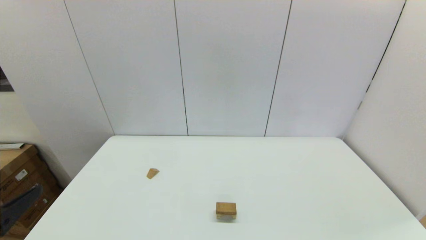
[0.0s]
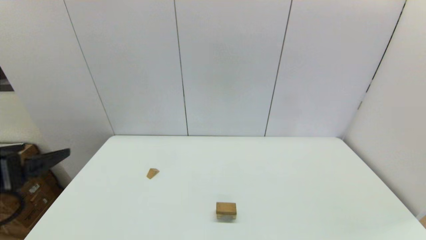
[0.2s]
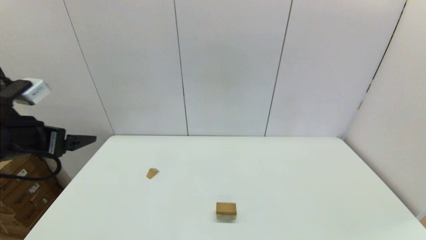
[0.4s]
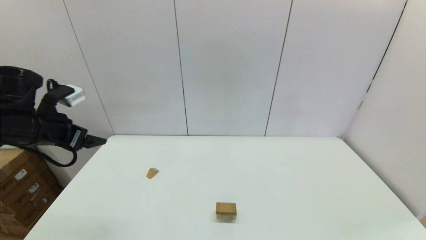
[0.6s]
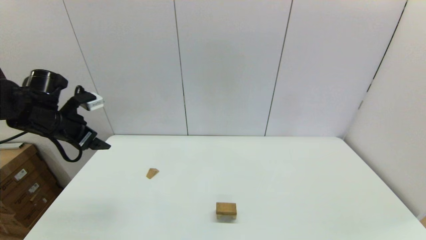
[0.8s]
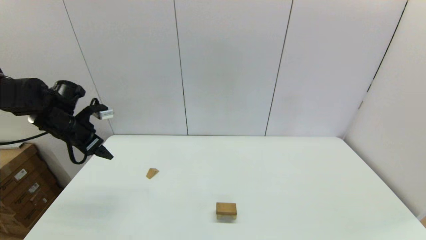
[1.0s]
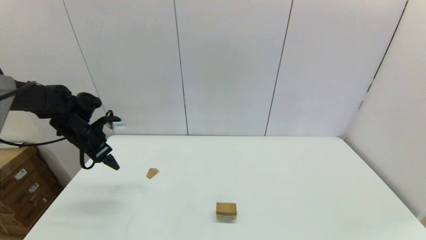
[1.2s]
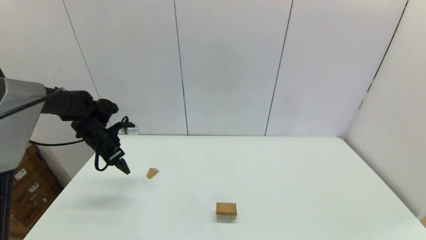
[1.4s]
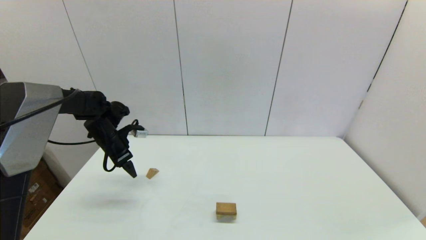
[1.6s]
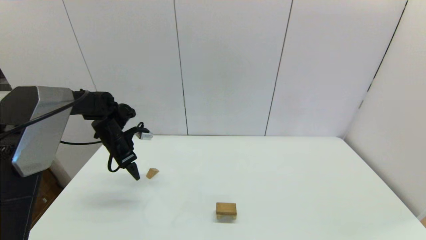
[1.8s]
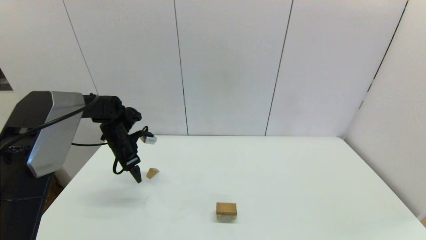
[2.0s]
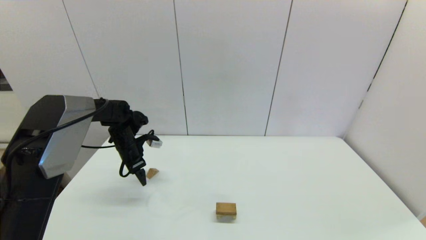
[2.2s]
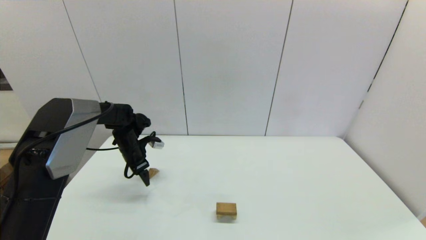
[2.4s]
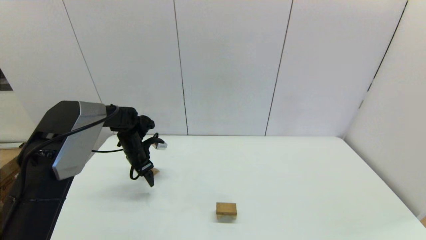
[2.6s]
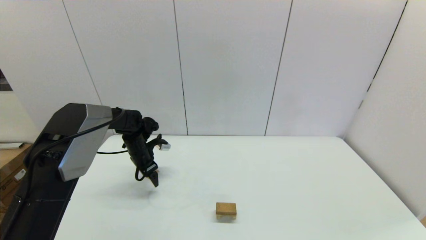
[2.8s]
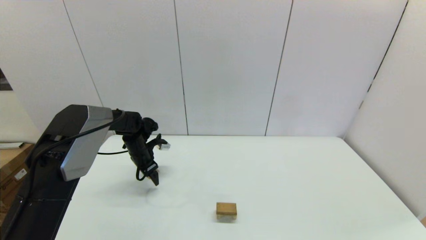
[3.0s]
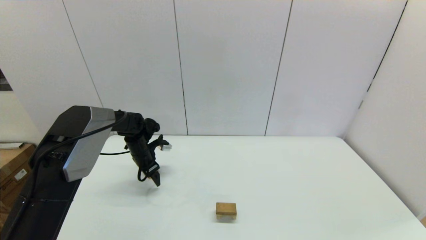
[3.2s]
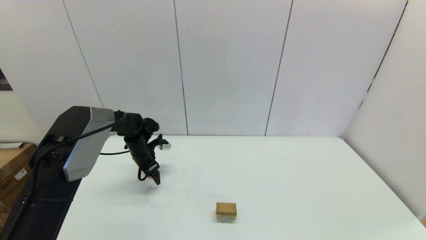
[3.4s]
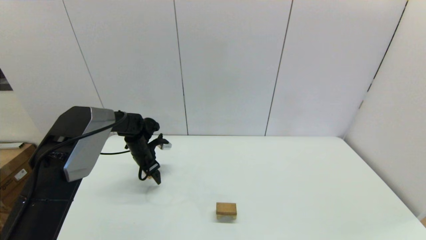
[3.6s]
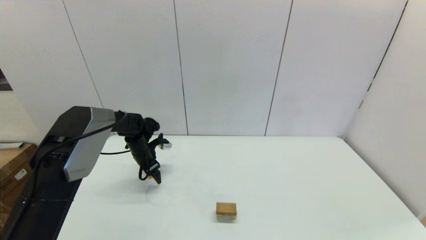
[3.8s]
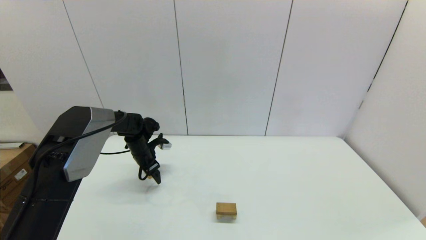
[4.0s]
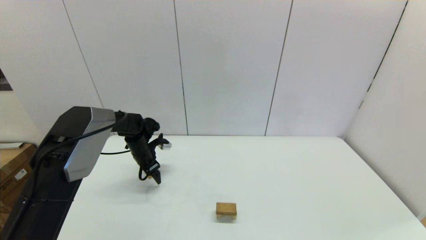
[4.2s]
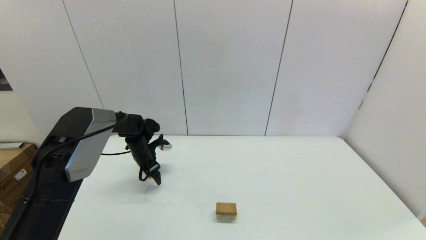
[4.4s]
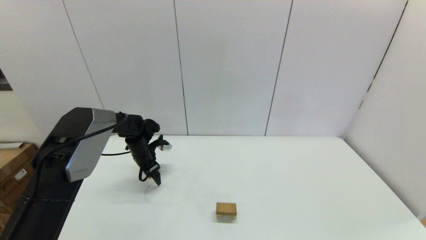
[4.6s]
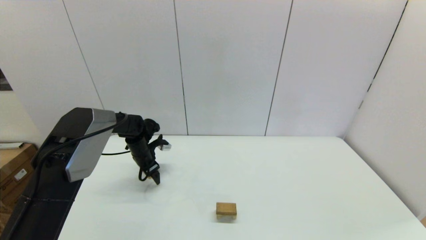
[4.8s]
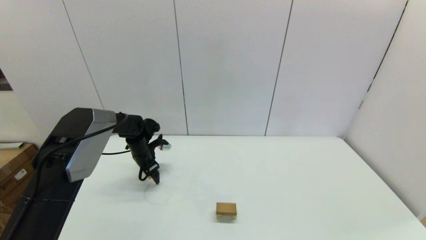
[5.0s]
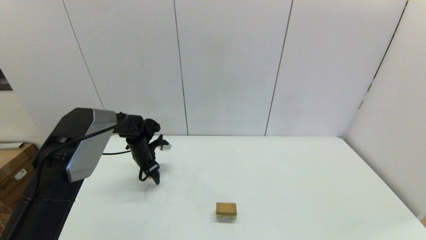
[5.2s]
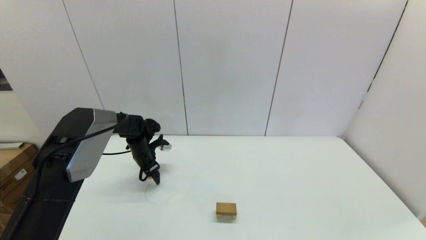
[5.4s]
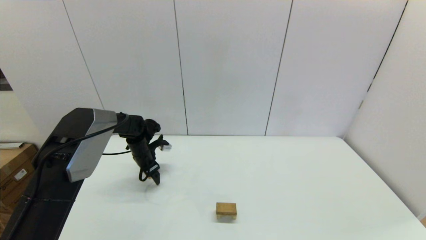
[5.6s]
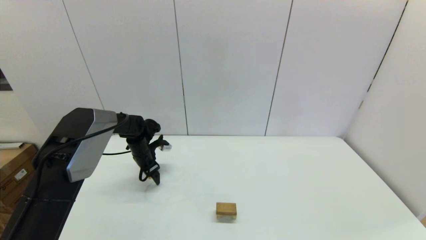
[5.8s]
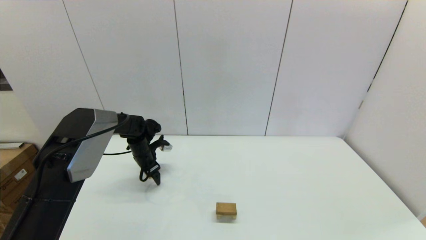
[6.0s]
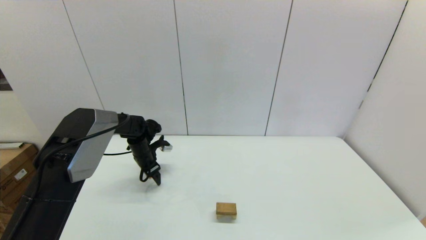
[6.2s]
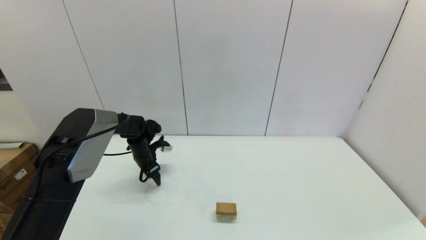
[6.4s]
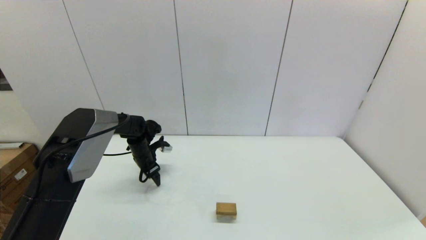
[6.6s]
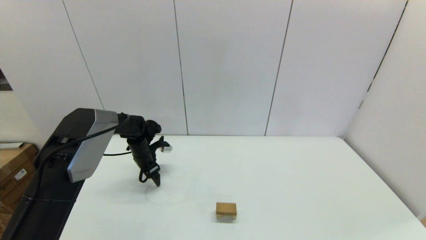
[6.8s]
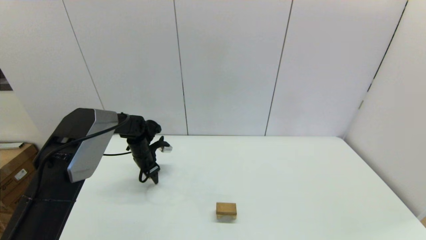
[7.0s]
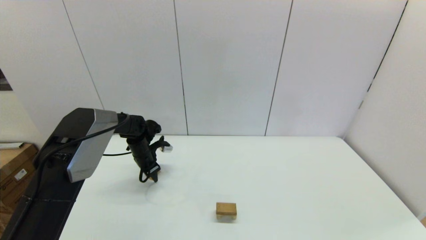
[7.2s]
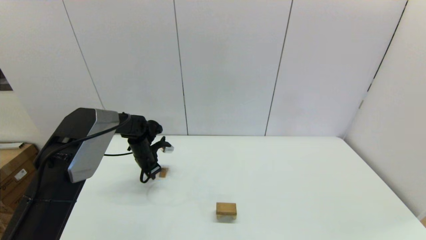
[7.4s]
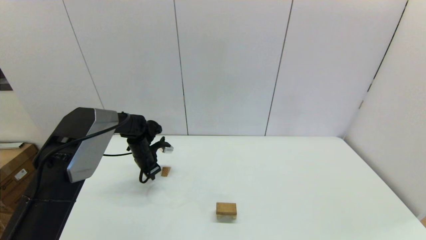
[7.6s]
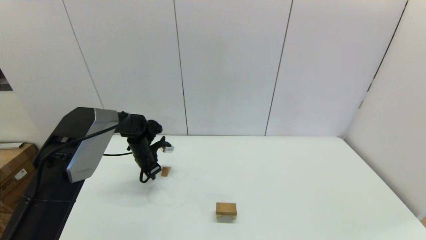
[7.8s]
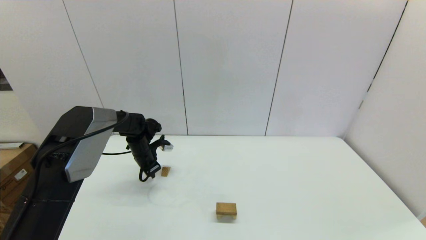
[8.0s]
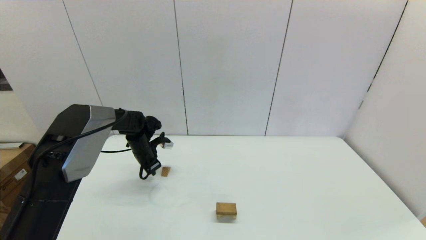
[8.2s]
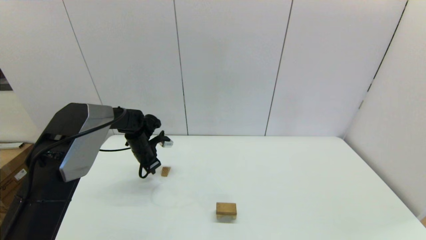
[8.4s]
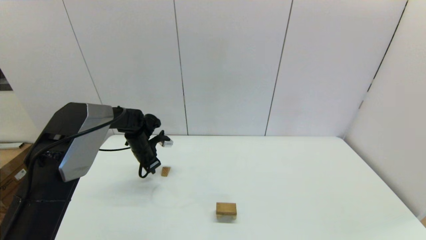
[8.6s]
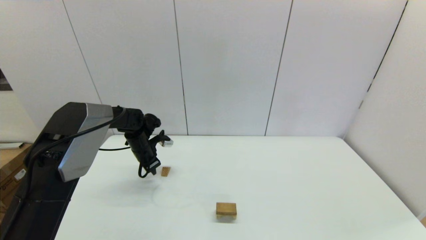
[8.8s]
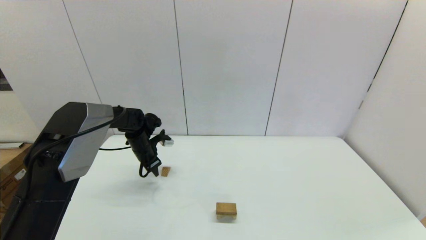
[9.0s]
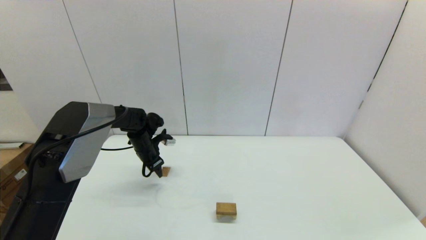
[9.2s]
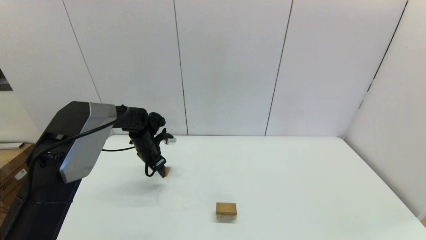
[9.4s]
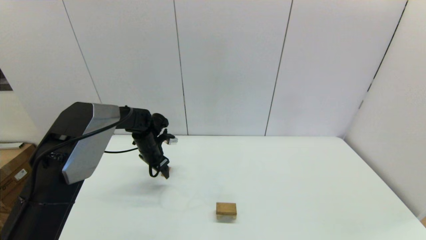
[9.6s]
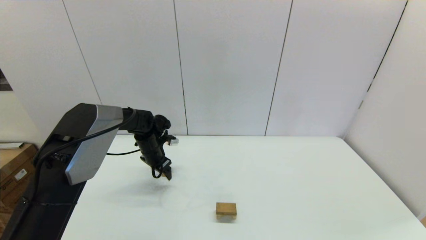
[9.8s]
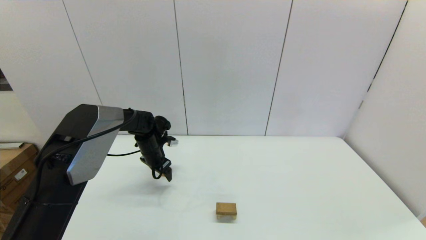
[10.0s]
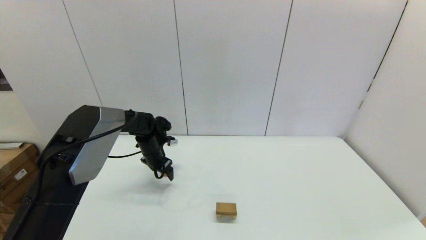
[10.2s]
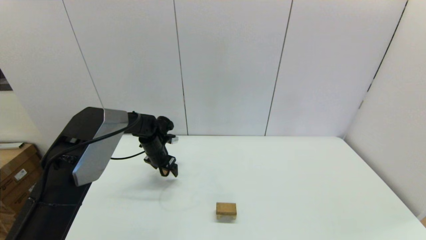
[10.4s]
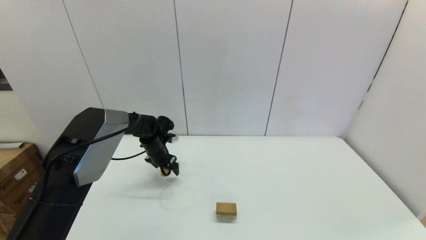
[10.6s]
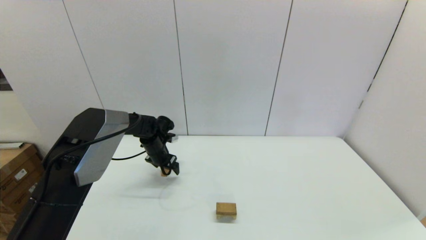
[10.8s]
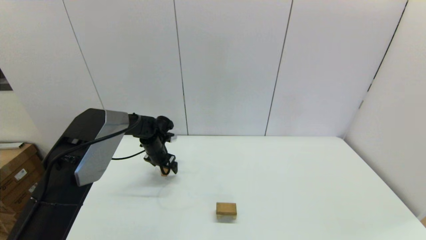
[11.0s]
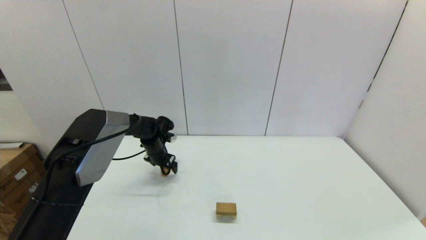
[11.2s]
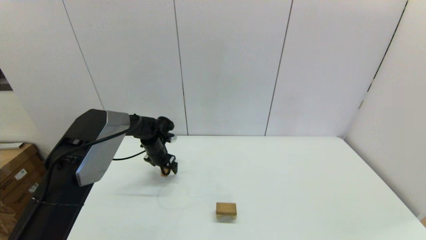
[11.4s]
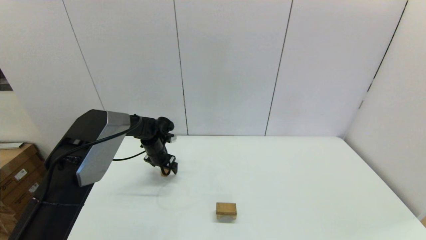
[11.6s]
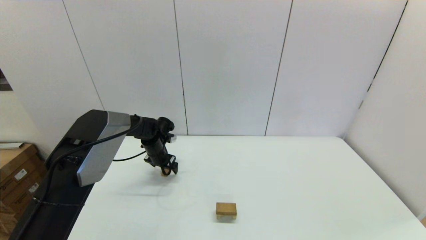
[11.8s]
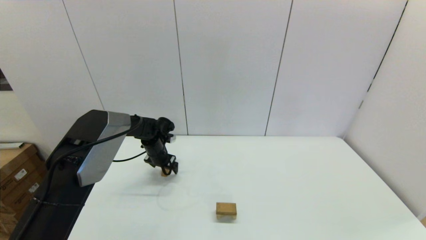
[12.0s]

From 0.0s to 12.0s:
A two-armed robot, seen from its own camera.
Task of the whole recording: place the arched building blocks in the center of the table, set up the rectangular building blocks, and then set up the triangular building blocks.
From 0.0s to 1.6s: The left gripper heads forward, covering about 35 cm.
From 1.6s to 3.0s: The left gripper heads downward and to the right, covering approximately 10 cm.
From 3.0s to 4.4s: Both grippers stay about where they are.
From 4.4s to 6.0s: Neither gripper changes place.
From 6.0s to 7.6s: The left gripper closes up.
From 7.6s to 9.0s: The left gripper opens up.
From 9.0s to 10.4s: The left gripper opens.
From 10.4s to 12.0s: The grippers move only a little.

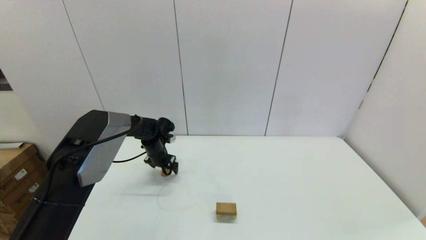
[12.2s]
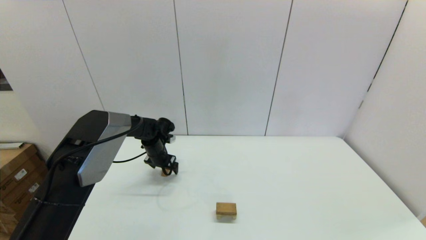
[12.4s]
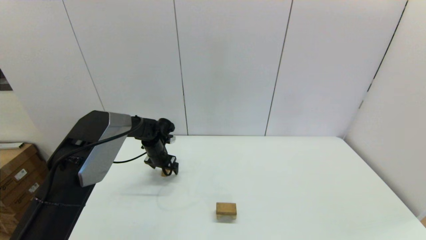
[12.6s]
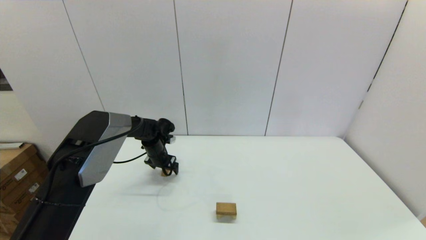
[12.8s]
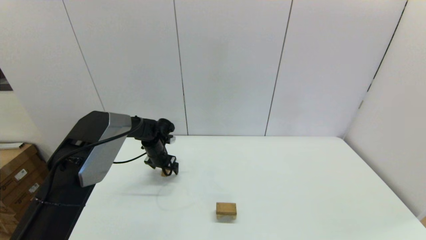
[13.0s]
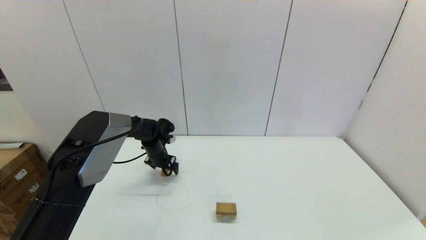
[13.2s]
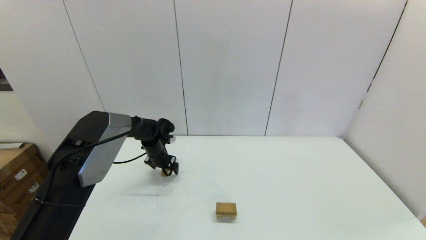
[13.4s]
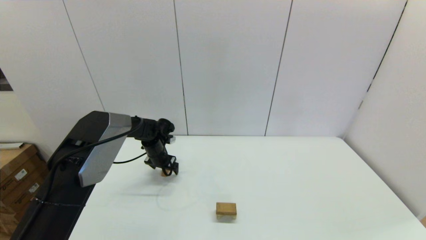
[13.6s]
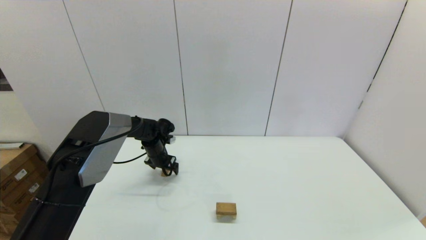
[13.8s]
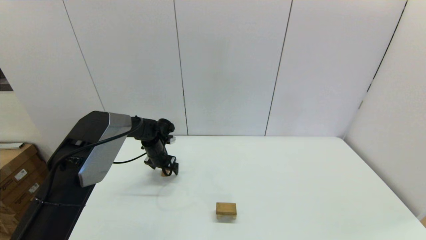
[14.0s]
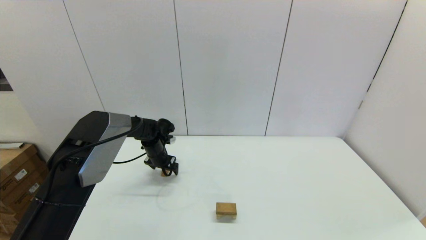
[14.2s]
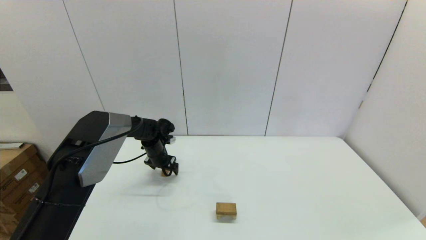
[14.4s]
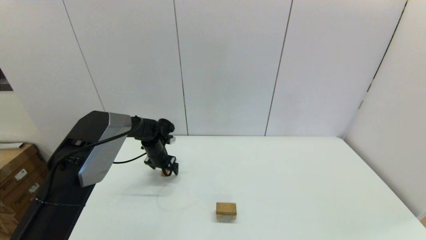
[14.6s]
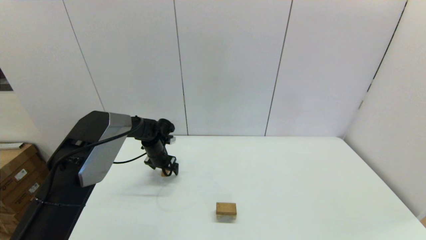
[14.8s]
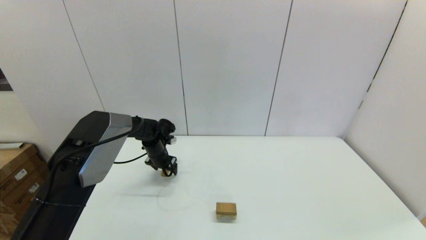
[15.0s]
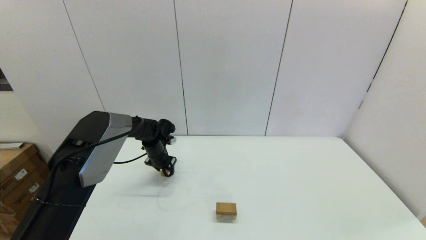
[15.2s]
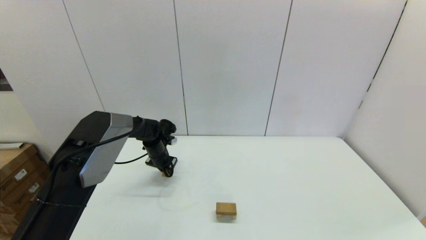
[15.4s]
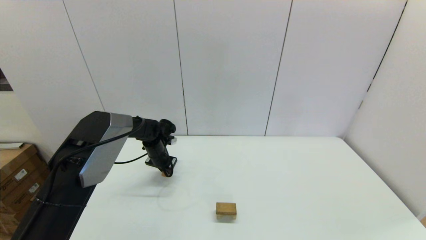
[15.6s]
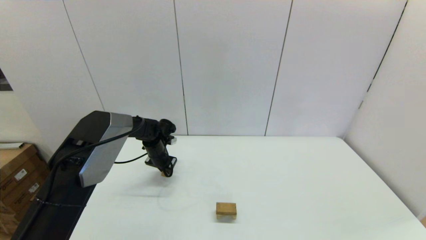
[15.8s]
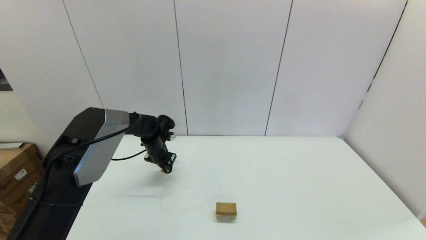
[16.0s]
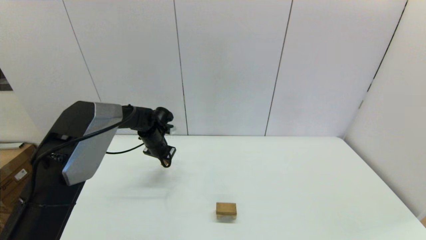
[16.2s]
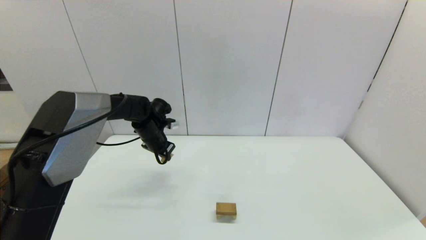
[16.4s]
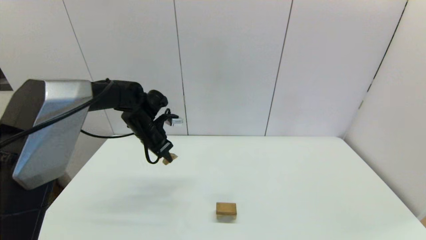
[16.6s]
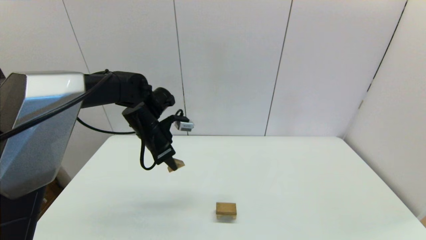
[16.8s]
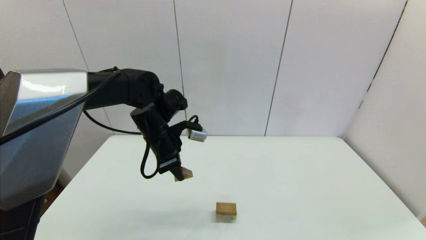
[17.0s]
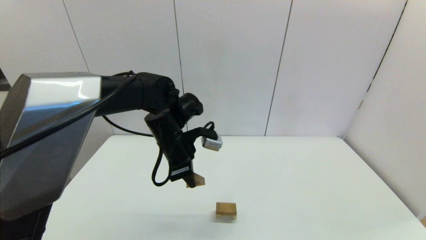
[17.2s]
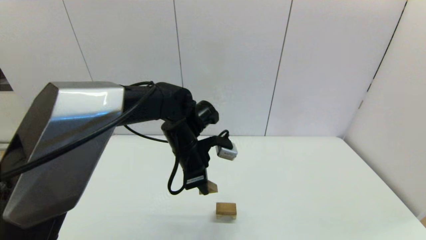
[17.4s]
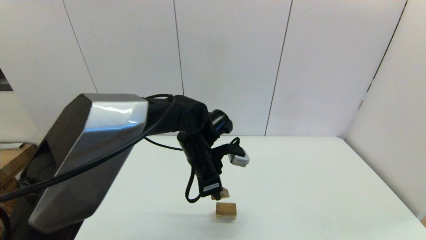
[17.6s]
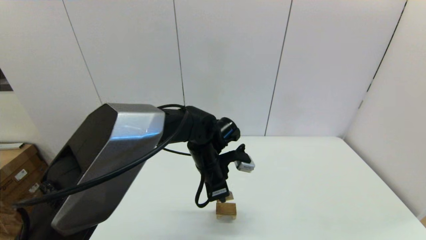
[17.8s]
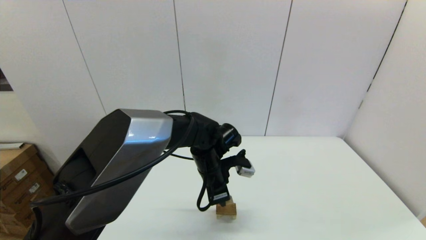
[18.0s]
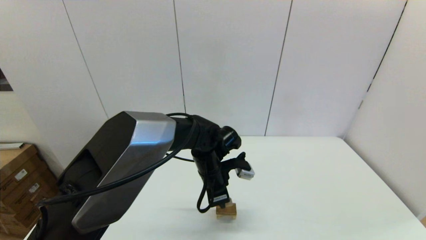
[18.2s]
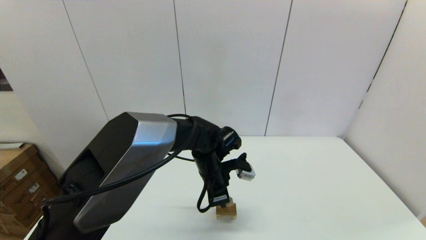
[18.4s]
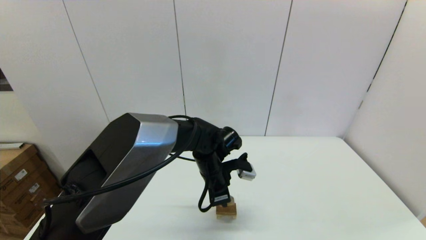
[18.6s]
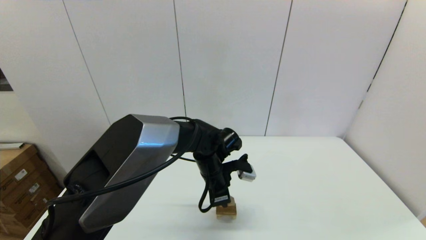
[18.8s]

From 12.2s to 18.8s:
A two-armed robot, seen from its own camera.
Task of the whole recording: place the arched building blocks in the center of the table, set up the rectangular building blocks, and then set up the triangular building blocks.
From 12.2s to 13.8s: Both grippers stay put.
From 13.8s to 15.4s: The left gripper closes.
From 15.4s to 17.2s: The left gripper goes some 25 cm upward, backward and to the right.
From 17.2s to 18.8s: The left gripper is displaced downward and to the right by about 15 cm.
